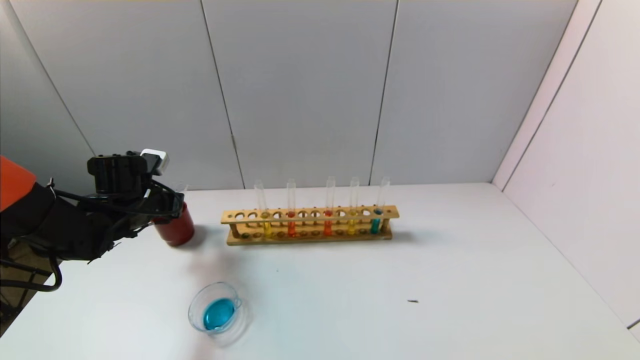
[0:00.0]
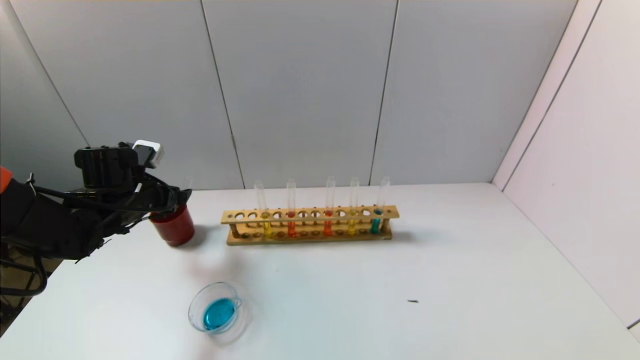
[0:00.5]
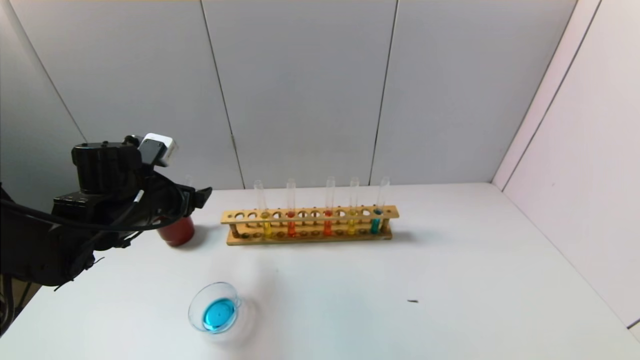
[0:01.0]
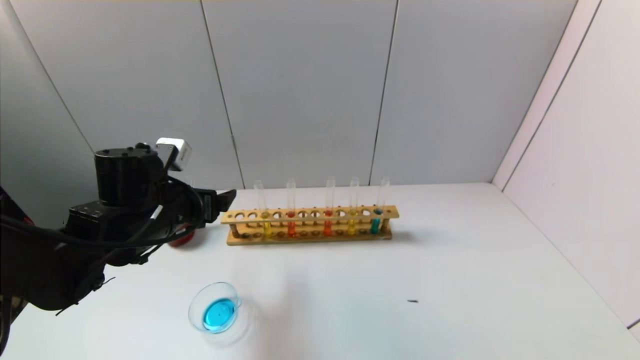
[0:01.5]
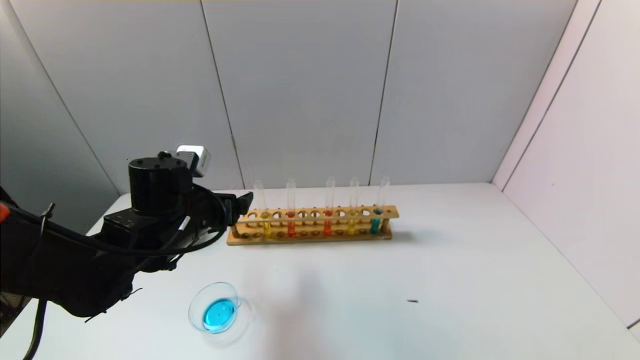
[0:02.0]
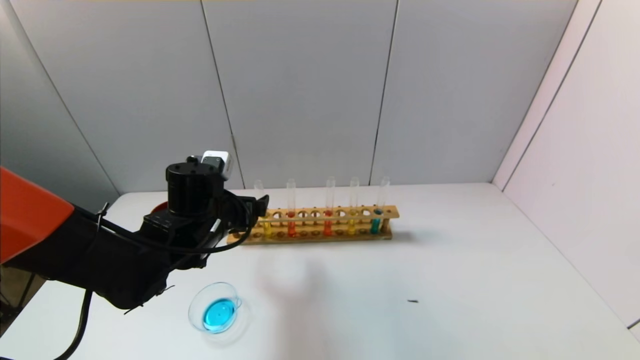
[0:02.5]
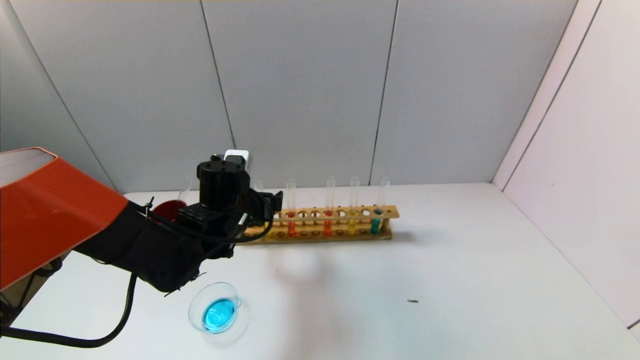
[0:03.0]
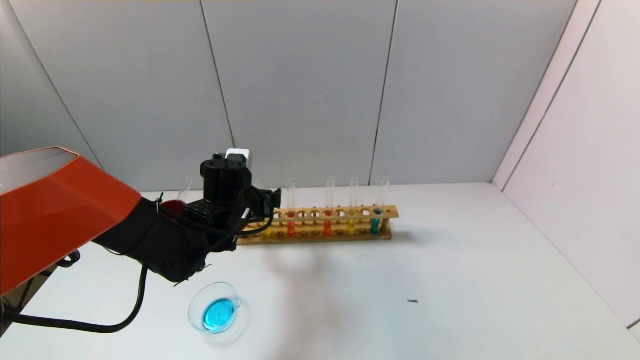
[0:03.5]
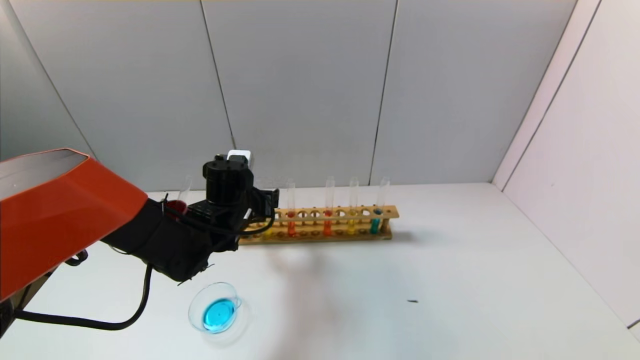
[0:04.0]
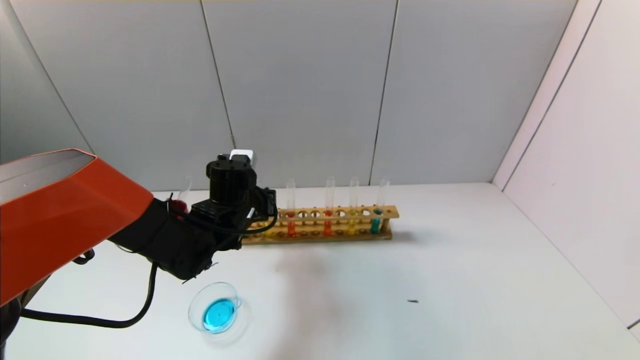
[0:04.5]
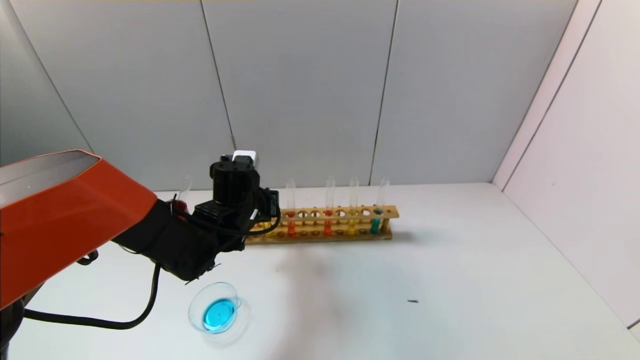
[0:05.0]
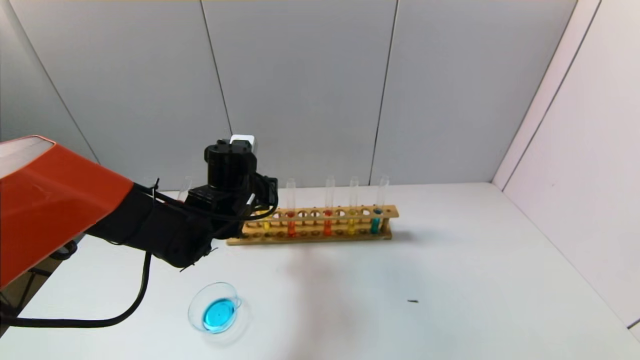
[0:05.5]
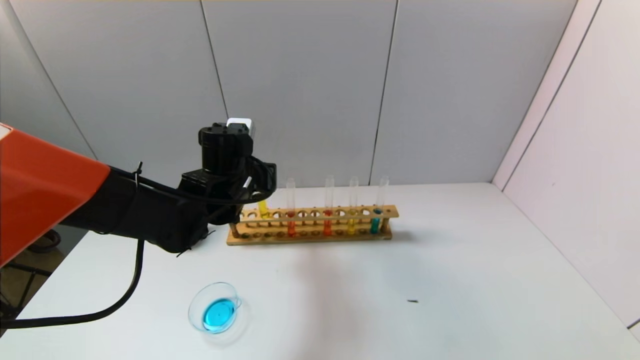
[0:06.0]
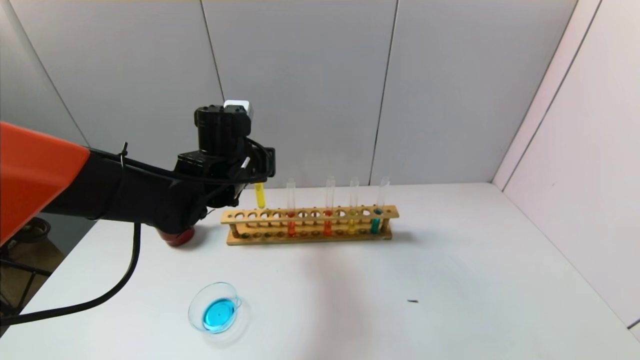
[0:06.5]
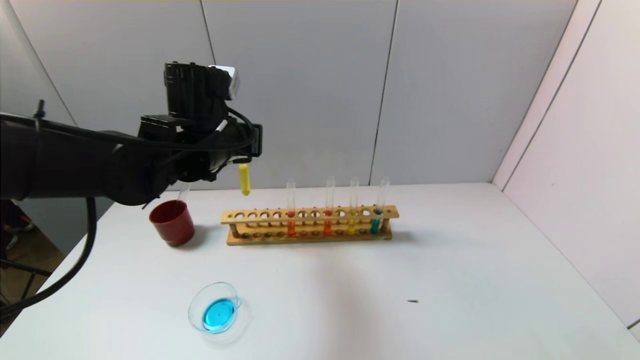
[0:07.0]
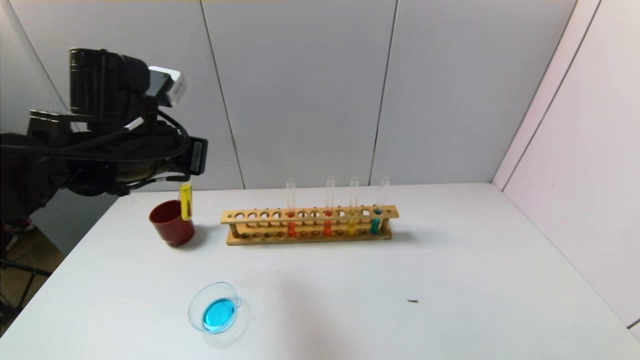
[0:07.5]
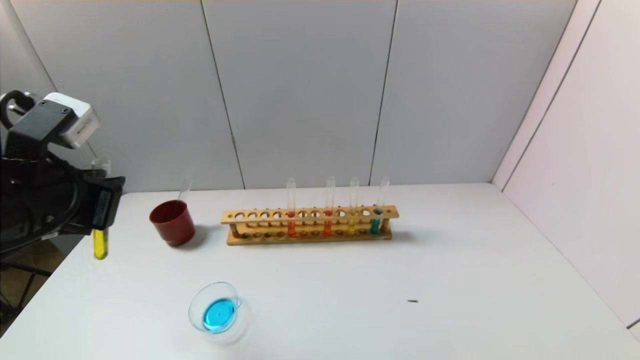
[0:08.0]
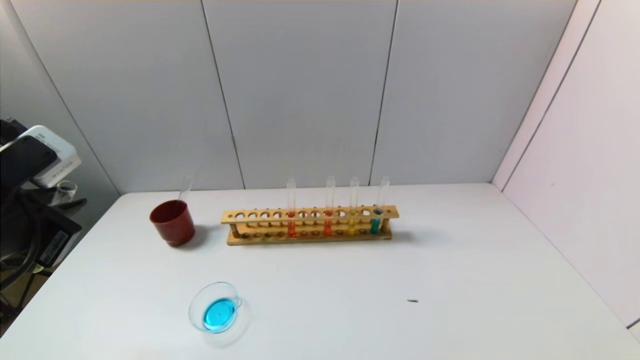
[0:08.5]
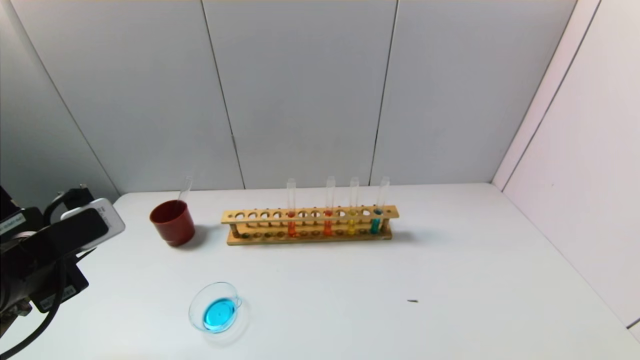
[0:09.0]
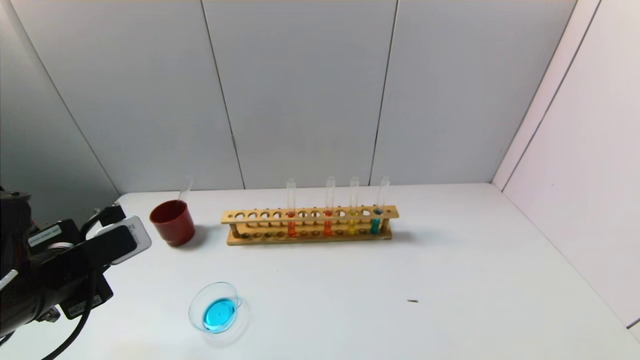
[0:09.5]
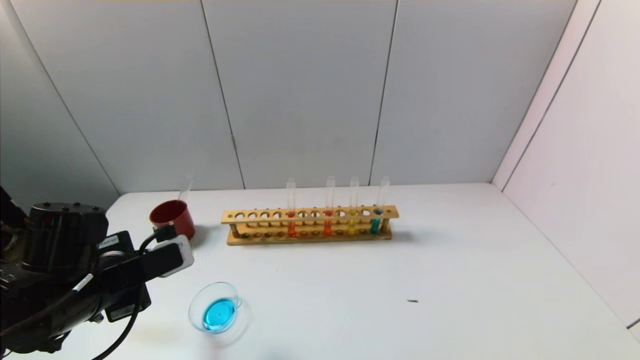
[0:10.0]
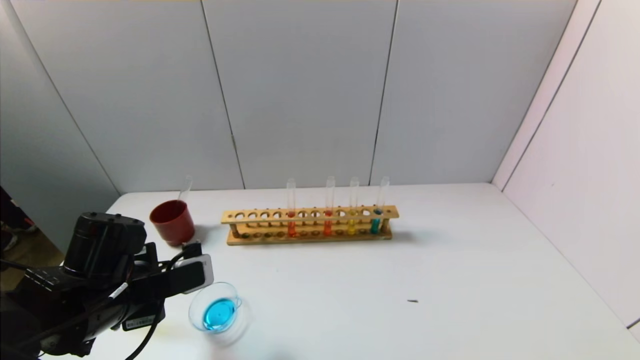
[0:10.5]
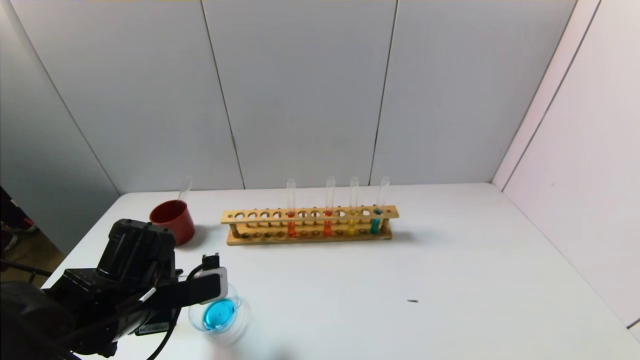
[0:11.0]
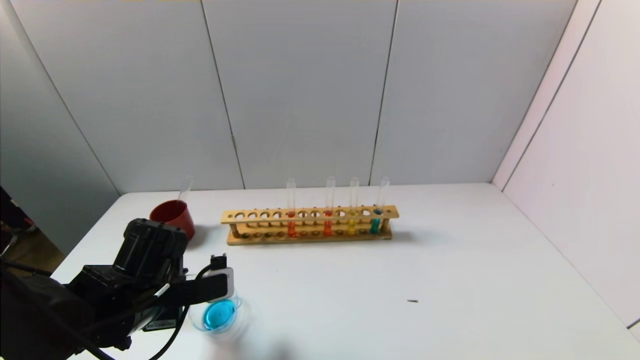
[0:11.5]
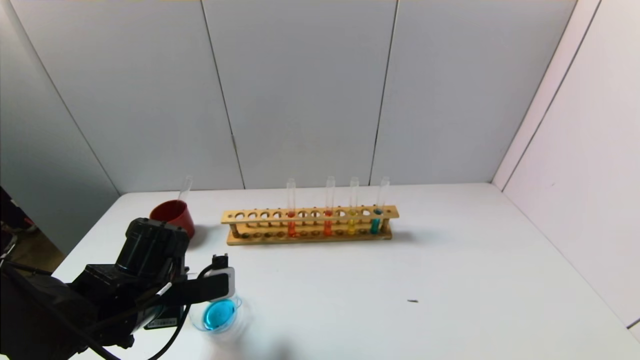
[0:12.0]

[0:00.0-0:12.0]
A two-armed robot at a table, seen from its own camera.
Task of the whole recording: pick up the test tube with yellow pigment and the test tube with blue pigment by grippers and pour them into the beaker.
Step, 0:00.5 to 0:04.5: Grasp the yellow reagent with the left gripper.
0:00.0 to 0:02.0: The left gripper heads to the right and backward, covering approximately 15 cm, and opens up.
0:02.0 to 0:04.0: The left gripper heads forward and to the right, covering about 10 cm.
0:04.0 to 0:06.0: The left gripper is displaced upward by approximately 5 cm, and closes.
0:06.0 to 0:08.0: The left gripper goes some 25 cm backward, to the left and upward.
0:08.0 to 0:10.0: The left gripper is displaced downward by roughly 10 cm.
0:10.0 to 0:12.0: The left gripper ends up roughly 5 cm from where it was.

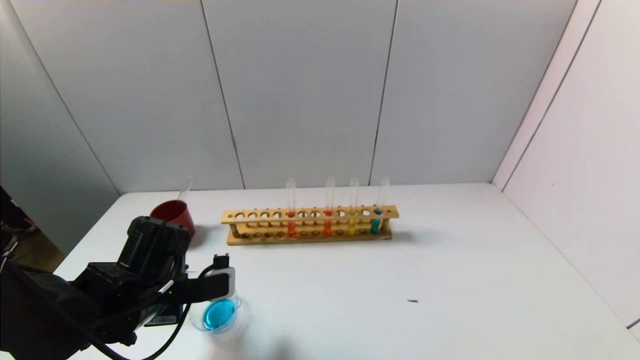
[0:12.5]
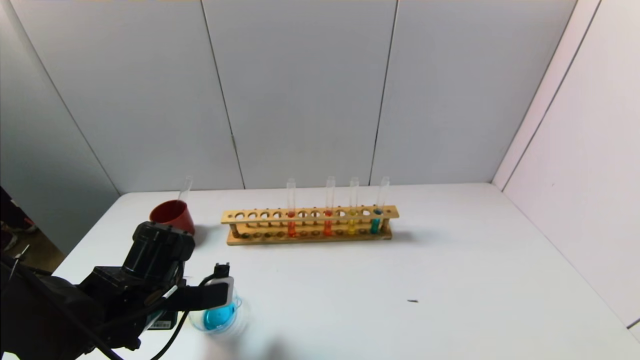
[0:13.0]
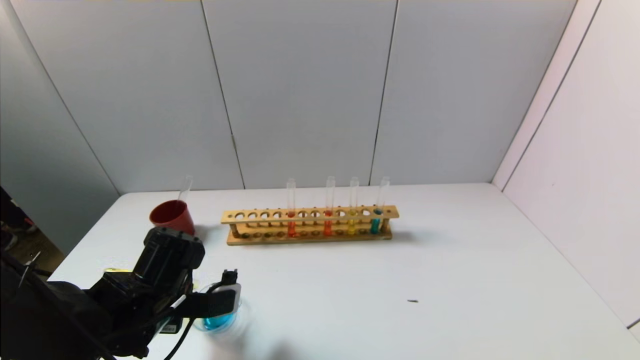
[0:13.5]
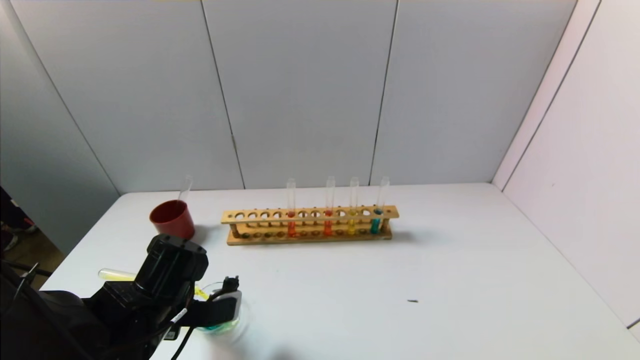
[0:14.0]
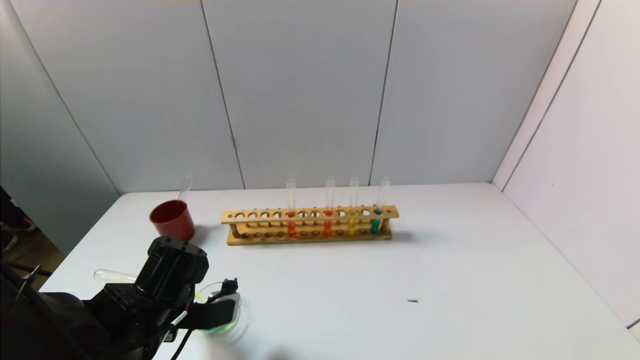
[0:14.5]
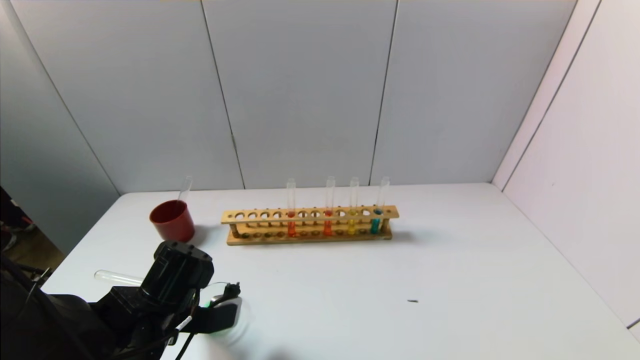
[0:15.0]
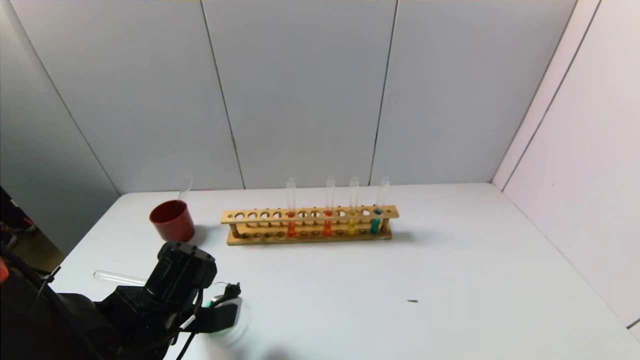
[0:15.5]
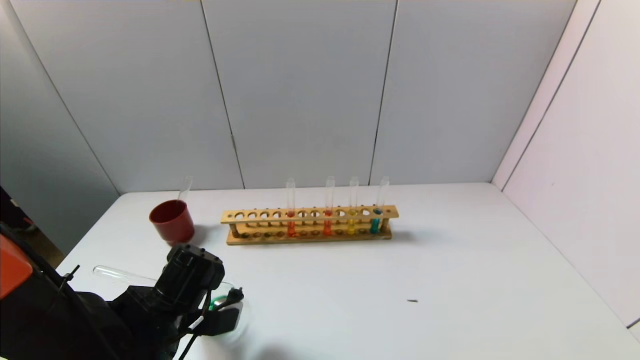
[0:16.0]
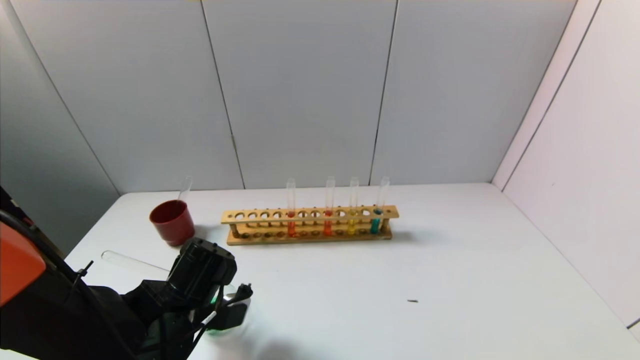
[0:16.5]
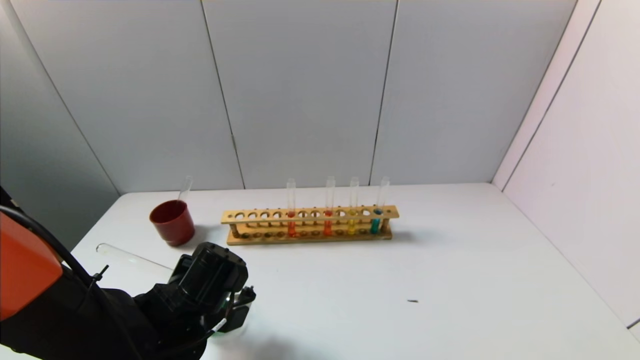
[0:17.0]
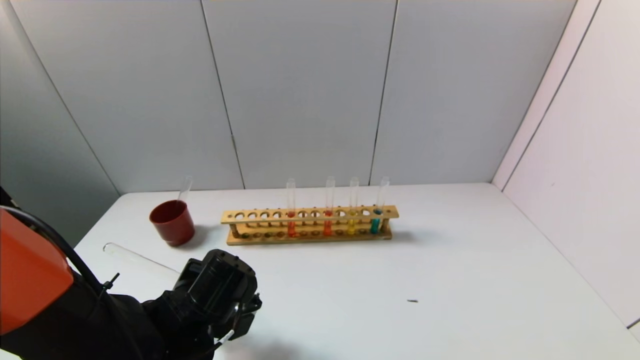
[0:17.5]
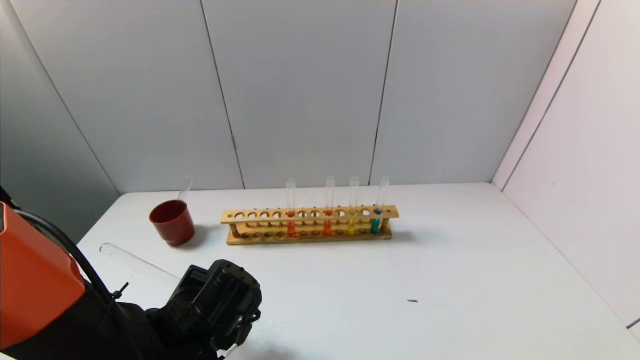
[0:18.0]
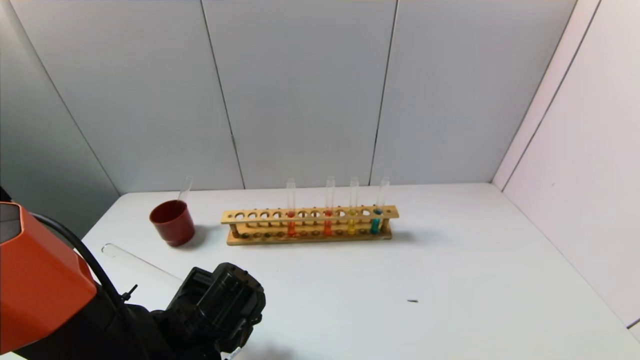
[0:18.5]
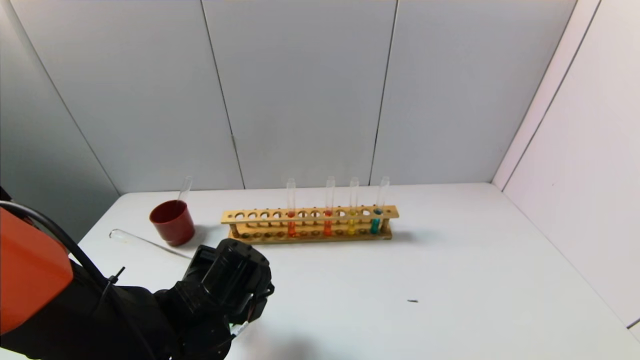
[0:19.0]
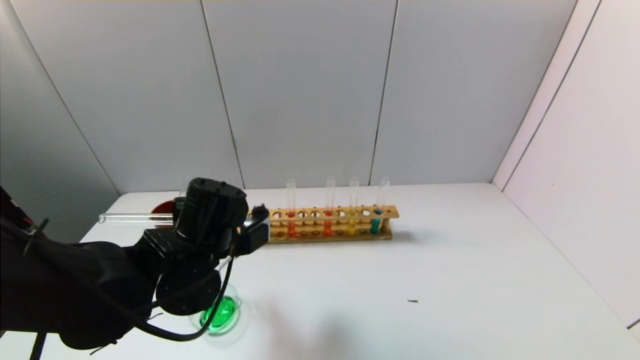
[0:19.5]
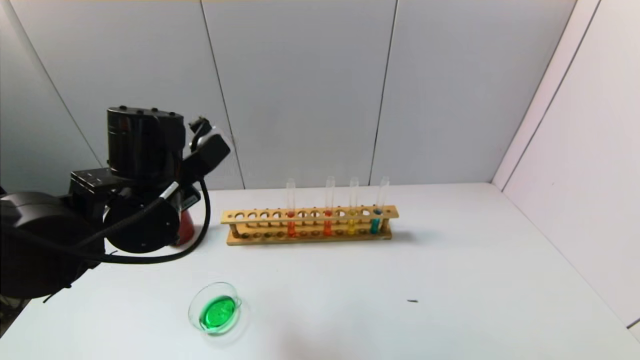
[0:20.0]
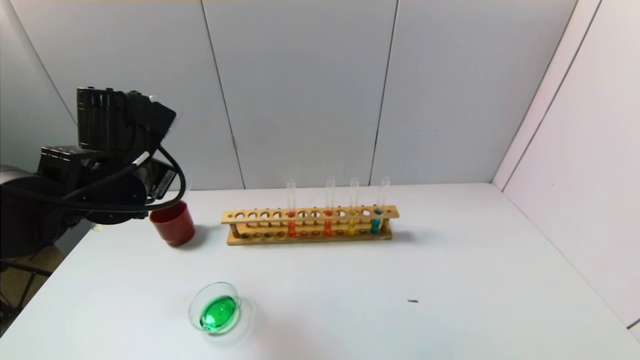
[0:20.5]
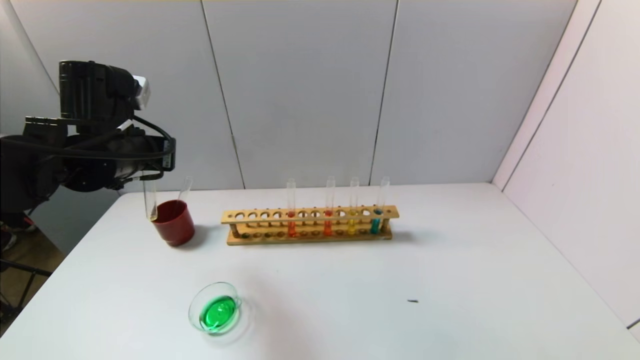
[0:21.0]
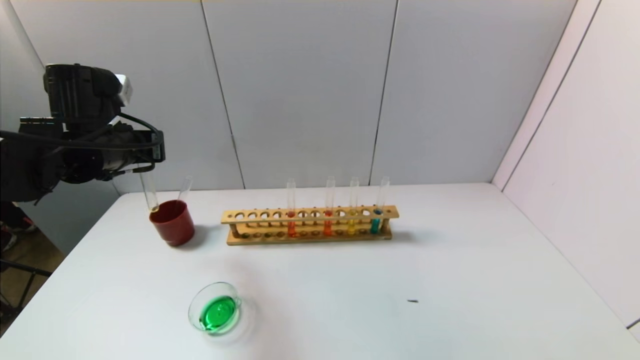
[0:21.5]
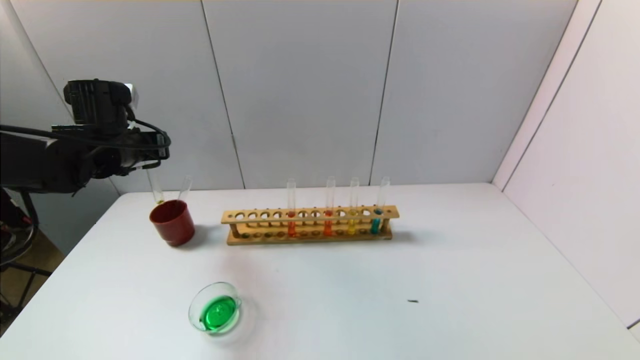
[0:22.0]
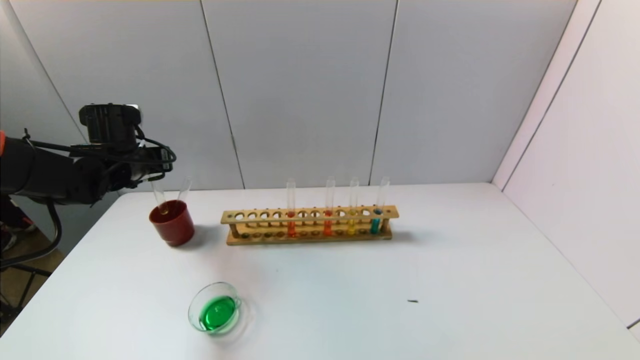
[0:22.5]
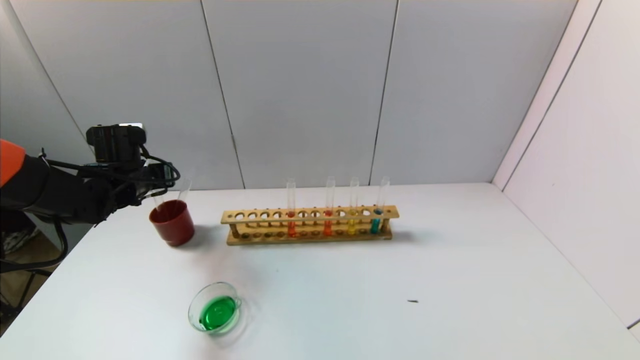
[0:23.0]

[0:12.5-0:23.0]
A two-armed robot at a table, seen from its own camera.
Task of the whole recording: pick up the test tube with yellow pigment and the test tube with blue pigment by grippers and pour them into the beaker.
Step, 0:12.5 to 0:18.5: Pour the yellow reagent into the graduated cylinder with the left gripper.
0:12.5 to 0:14.5: There are only small adjustments of the grippers.
0:14.5 to 0:16.5: The grippers stay close to where they were, moving slightly.
0:16.5 to 0:19.0: The grippers move only a little.
0:19.0 to 0:21.0: The left gripper is displaced upward, to the left and forward by some 20 cm.
0:21.0 to 0:23.0: The left gripper goes approximately 15 cm downward, forward and to the left.
